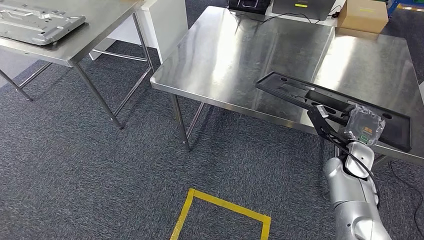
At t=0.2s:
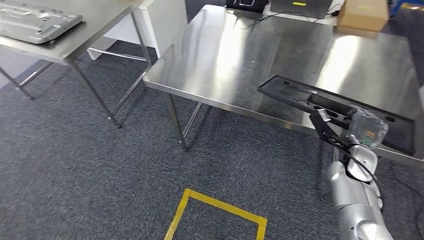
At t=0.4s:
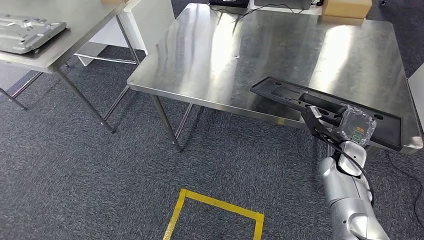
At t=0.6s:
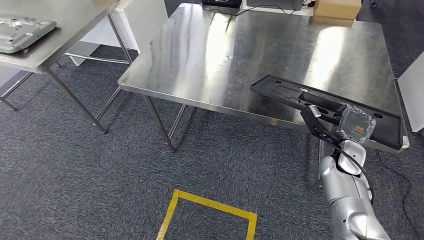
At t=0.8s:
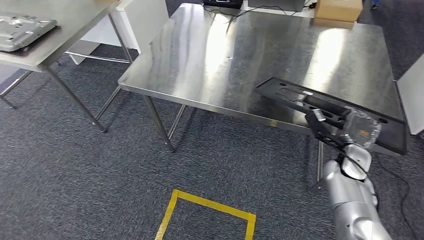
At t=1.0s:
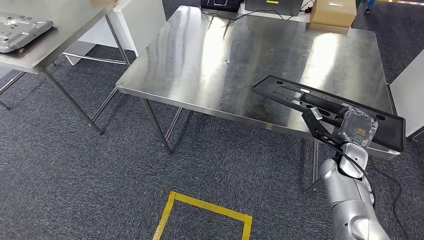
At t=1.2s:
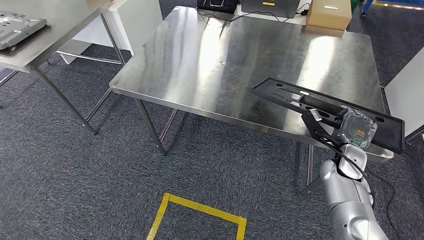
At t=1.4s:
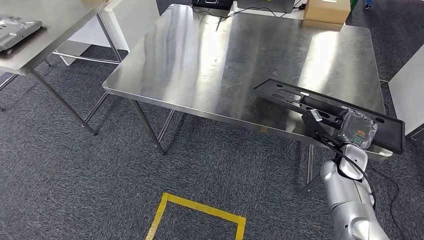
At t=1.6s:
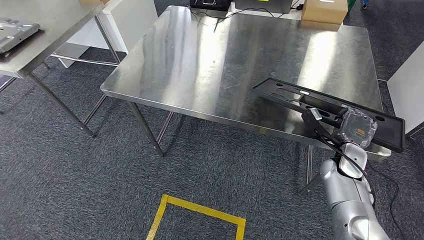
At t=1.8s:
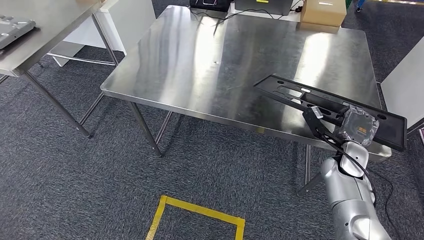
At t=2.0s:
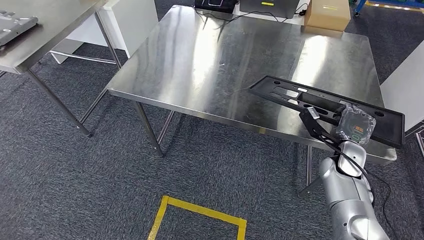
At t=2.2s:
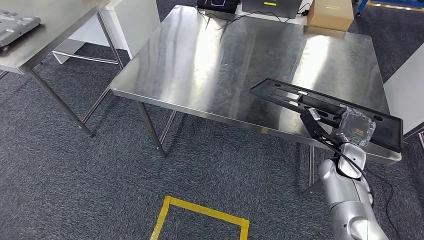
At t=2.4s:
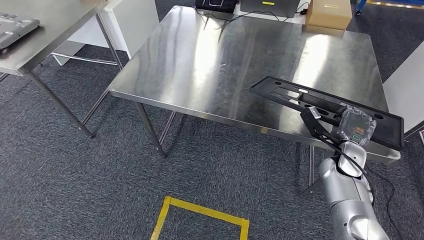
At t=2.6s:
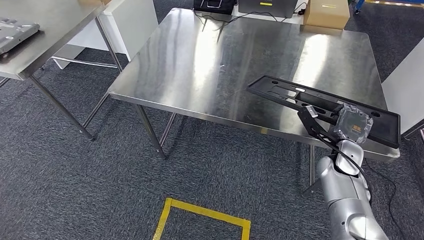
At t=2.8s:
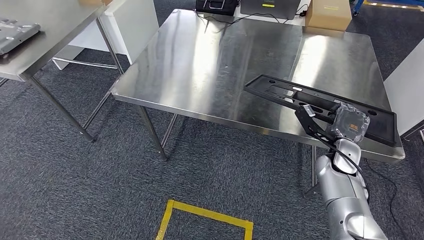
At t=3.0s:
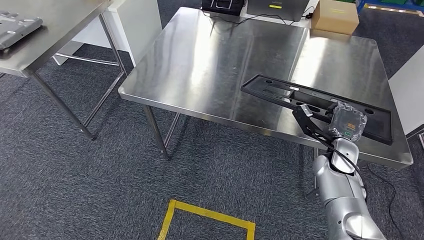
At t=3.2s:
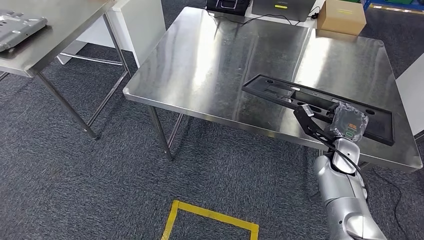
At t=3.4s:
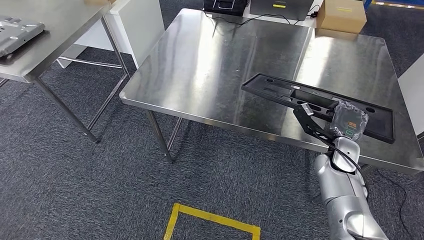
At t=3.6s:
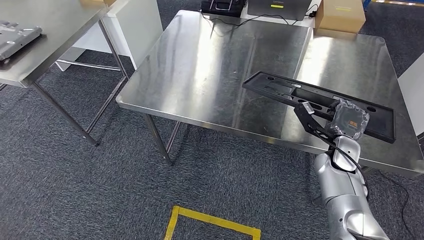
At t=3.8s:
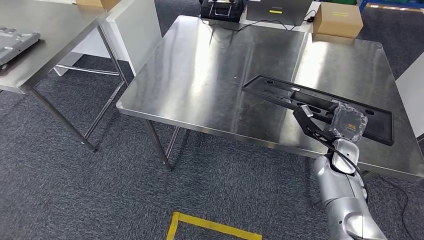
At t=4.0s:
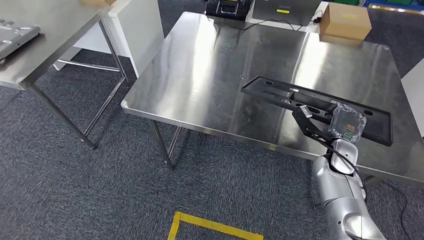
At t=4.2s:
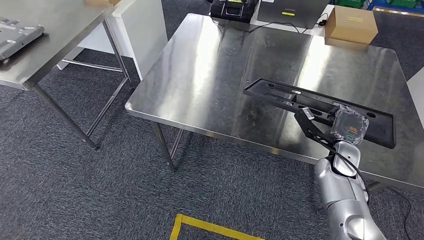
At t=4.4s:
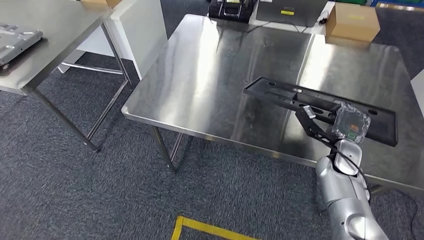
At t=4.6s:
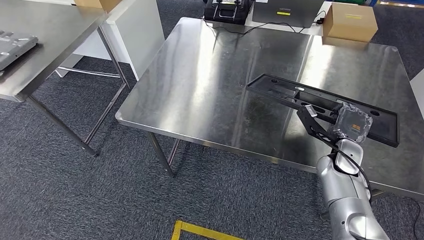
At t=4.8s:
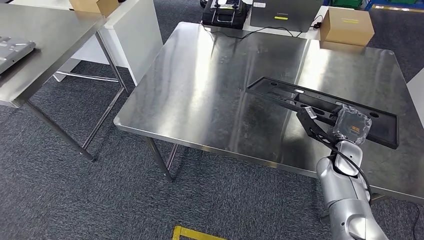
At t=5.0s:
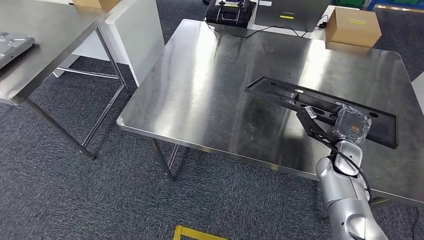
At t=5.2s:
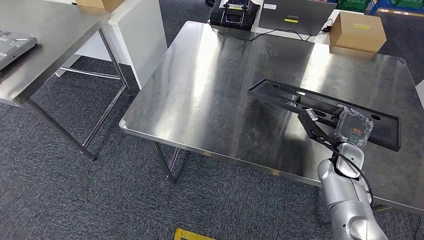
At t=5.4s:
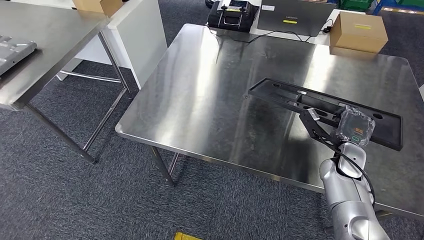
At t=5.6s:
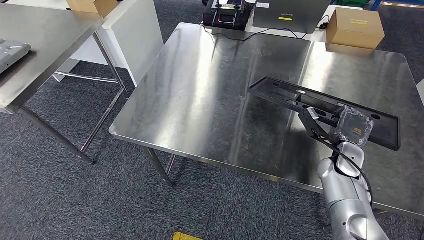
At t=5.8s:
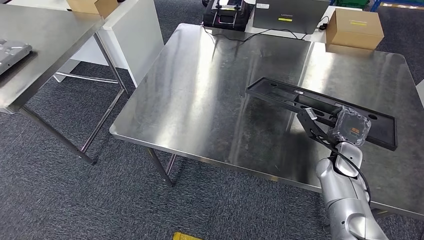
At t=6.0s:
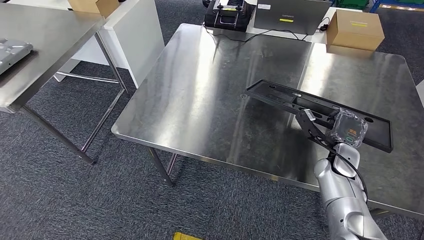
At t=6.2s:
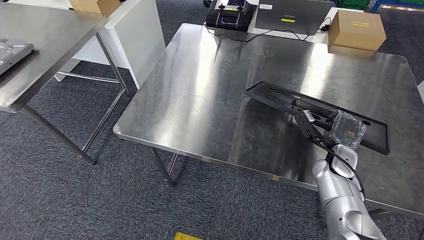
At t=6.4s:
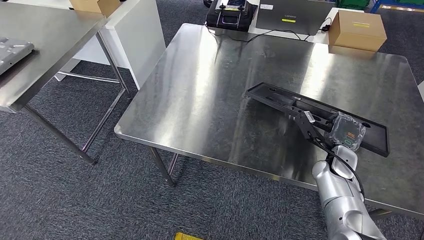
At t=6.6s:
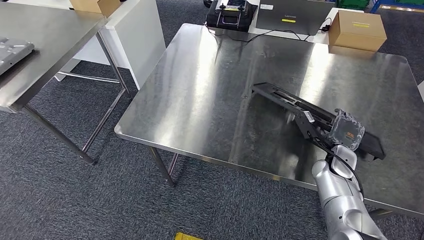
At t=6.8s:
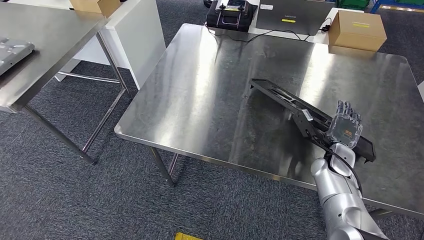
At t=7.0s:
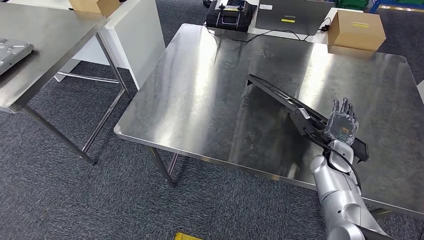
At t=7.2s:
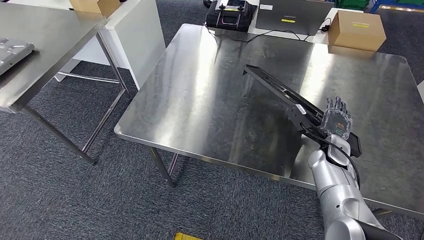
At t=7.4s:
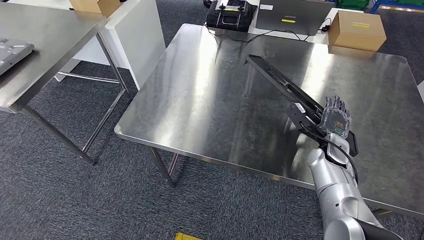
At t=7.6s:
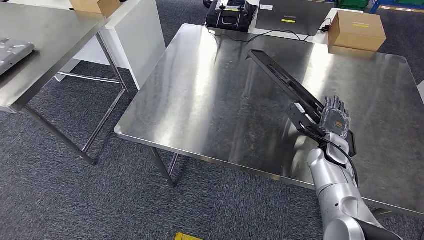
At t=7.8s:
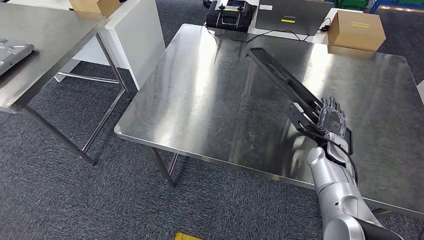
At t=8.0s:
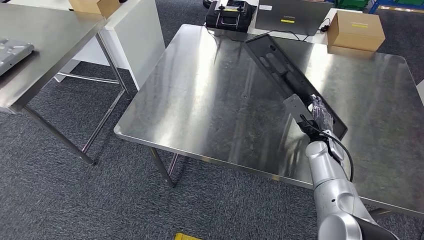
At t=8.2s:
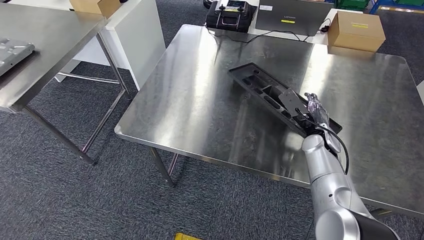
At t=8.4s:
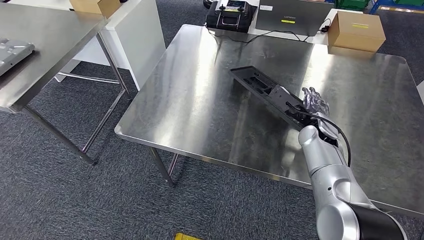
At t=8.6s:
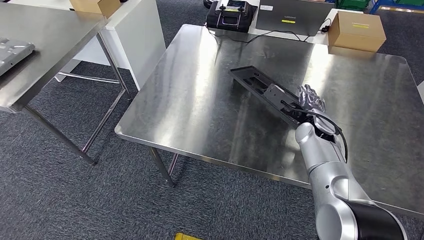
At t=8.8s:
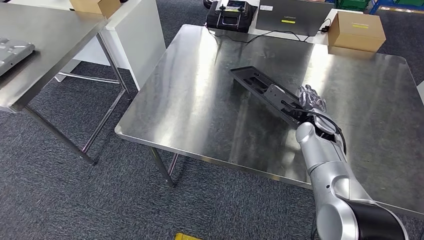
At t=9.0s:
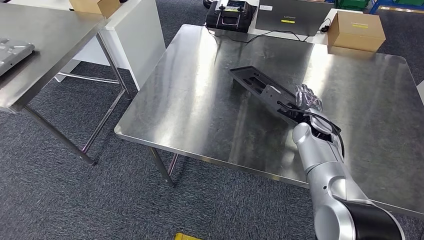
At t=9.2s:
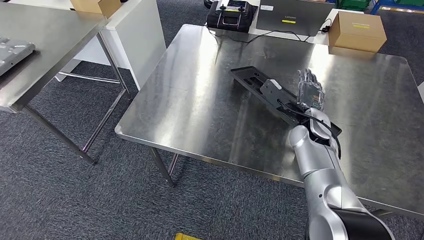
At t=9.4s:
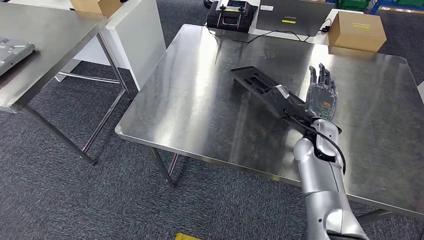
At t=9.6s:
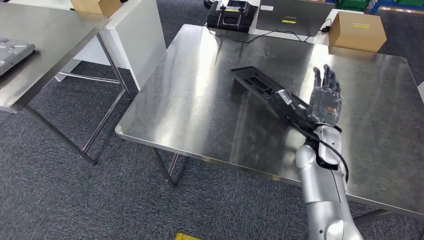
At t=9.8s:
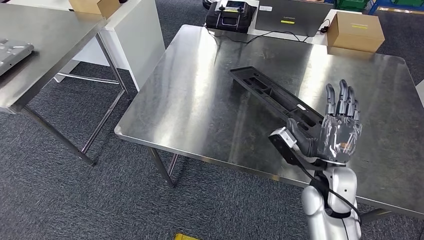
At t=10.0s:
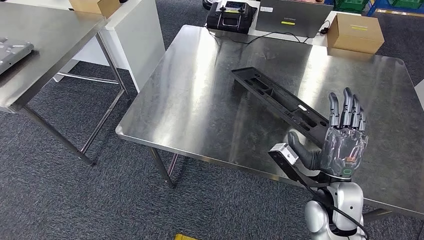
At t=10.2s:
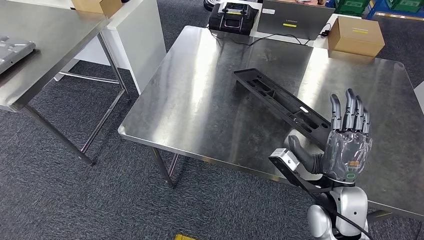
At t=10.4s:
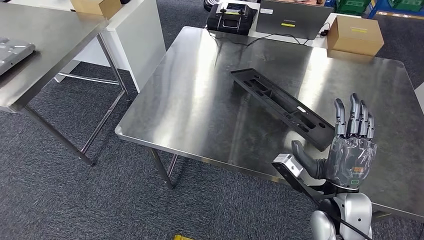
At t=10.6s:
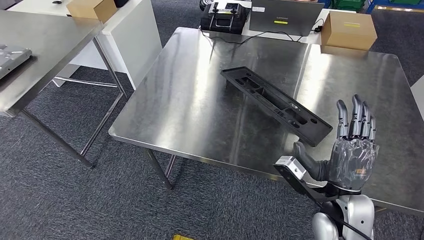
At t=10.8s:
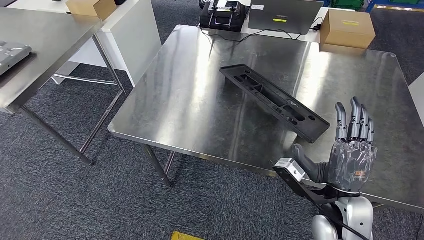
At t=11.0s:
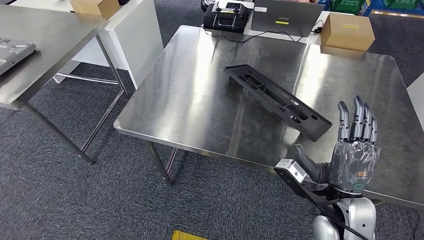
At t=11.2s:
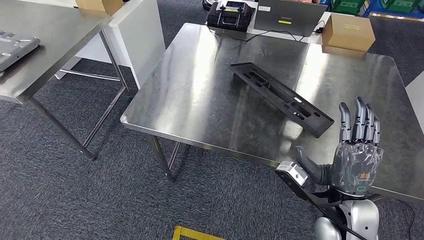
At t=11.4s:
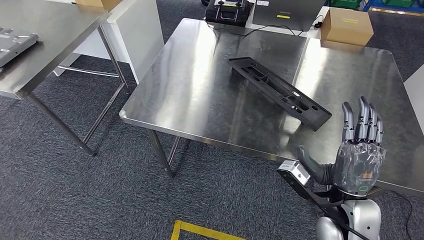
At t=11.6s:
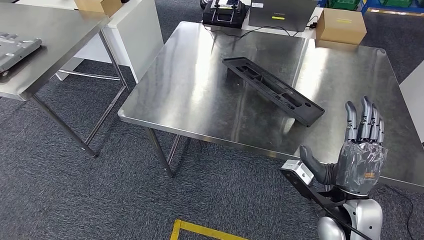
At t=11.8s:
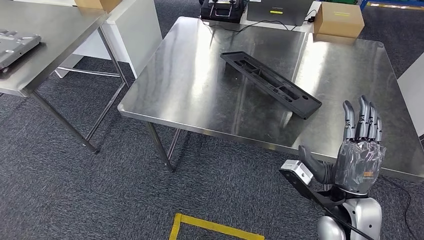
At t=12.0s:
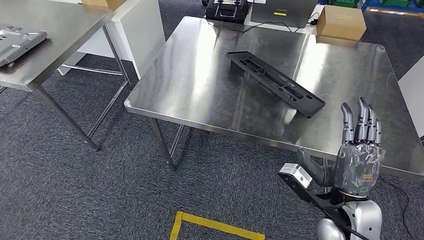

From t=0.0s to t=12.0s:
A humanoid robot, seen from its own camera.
From t=6.0s to t=7.6s: The hands stay close to where they were, moving slightly.
From t=7.6s to t=9.0s: The right hand moves to the left and upward, some 10 cm.
From t=9.0s to t=10.4s: The right hand goes roughly 20 cm backward.

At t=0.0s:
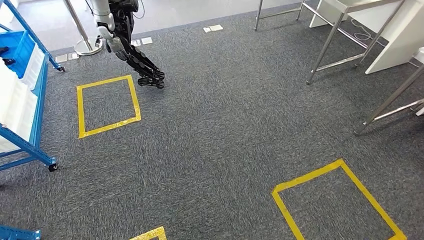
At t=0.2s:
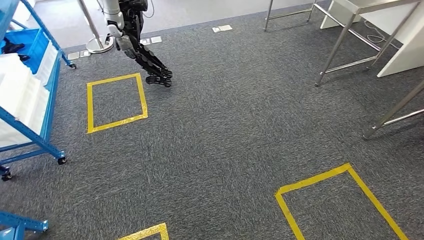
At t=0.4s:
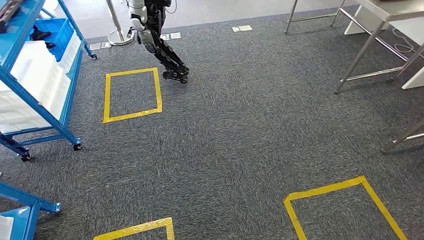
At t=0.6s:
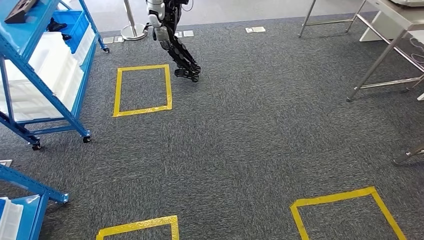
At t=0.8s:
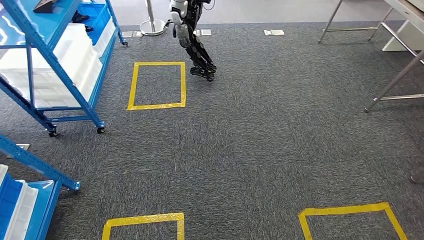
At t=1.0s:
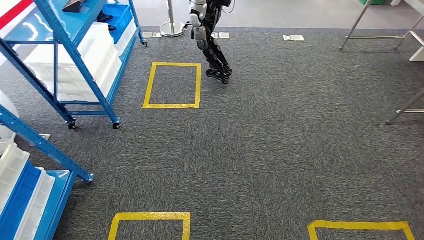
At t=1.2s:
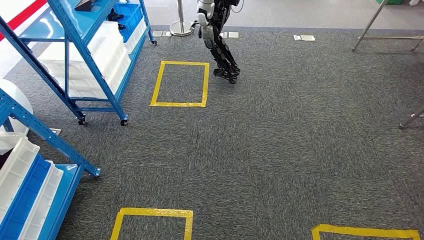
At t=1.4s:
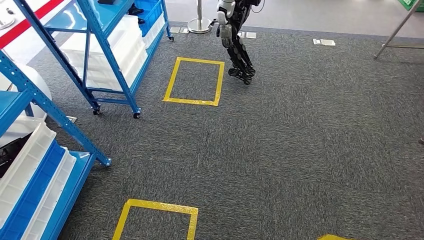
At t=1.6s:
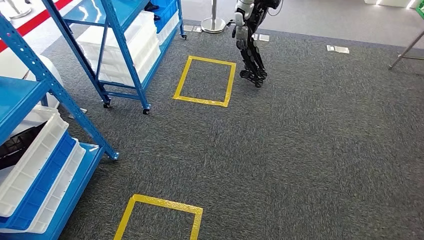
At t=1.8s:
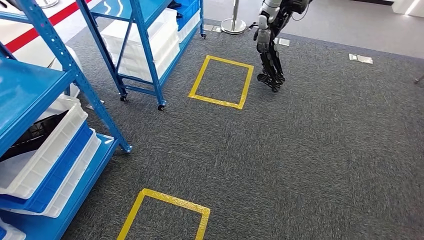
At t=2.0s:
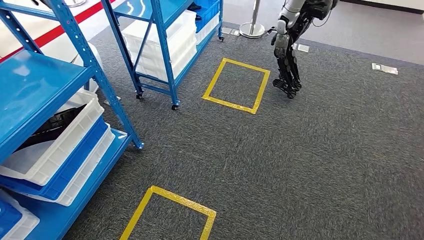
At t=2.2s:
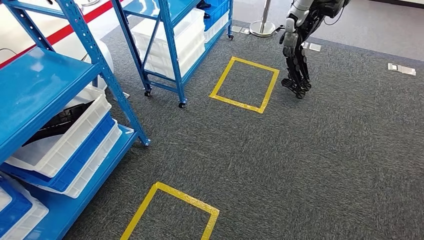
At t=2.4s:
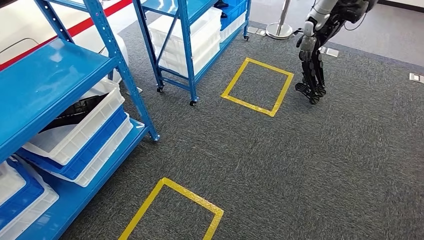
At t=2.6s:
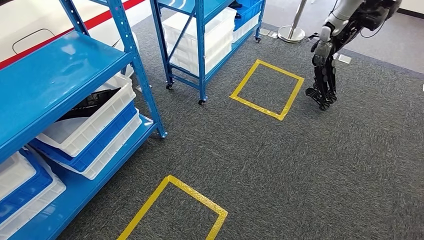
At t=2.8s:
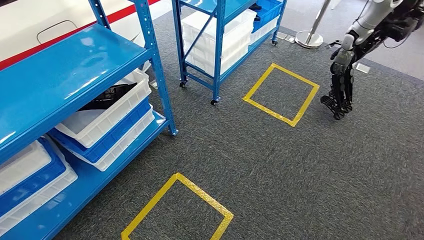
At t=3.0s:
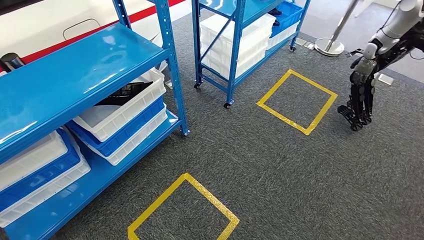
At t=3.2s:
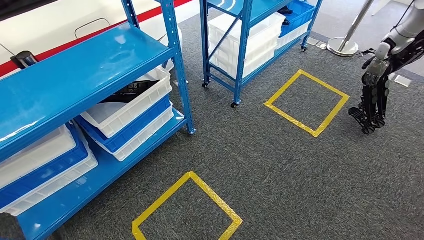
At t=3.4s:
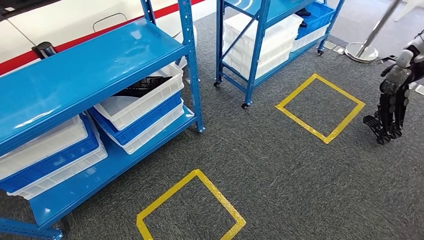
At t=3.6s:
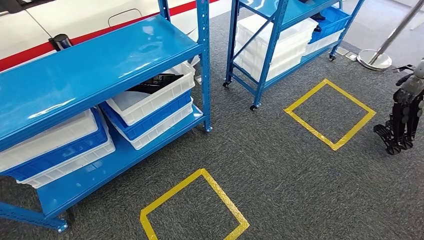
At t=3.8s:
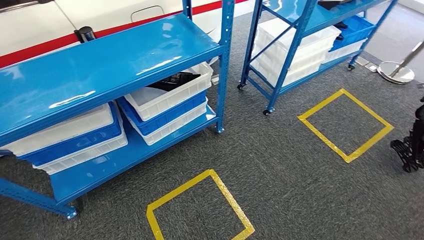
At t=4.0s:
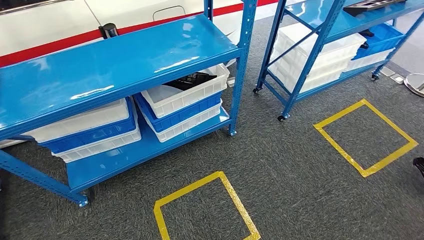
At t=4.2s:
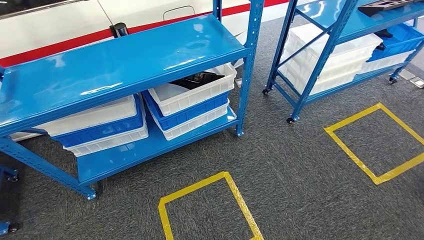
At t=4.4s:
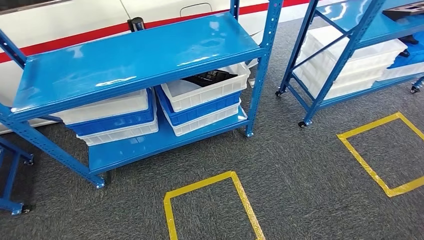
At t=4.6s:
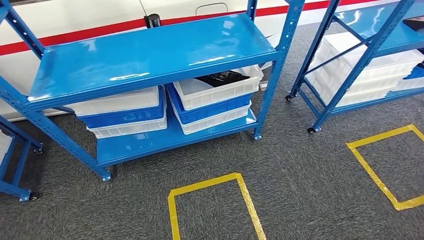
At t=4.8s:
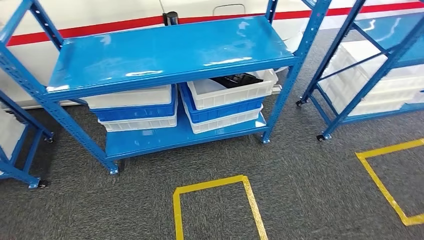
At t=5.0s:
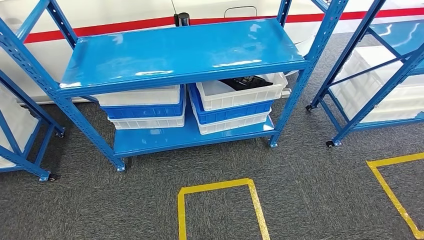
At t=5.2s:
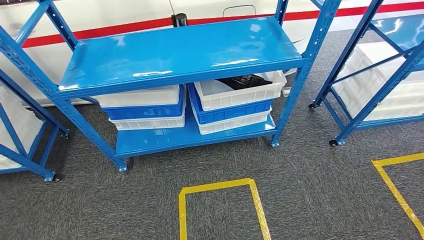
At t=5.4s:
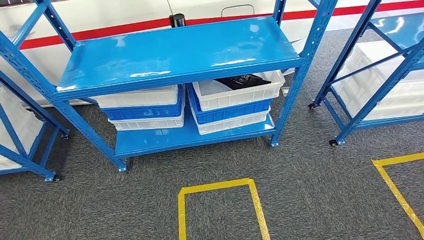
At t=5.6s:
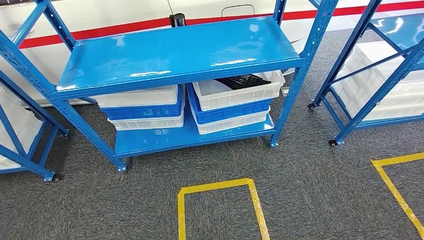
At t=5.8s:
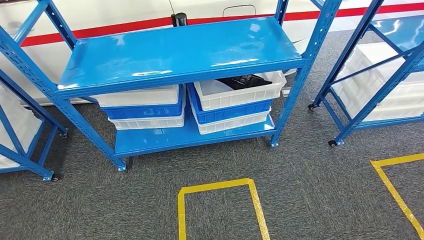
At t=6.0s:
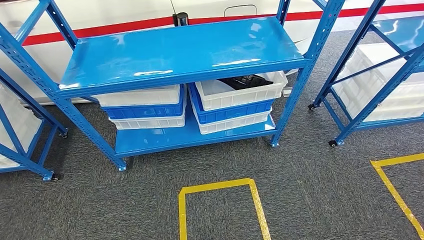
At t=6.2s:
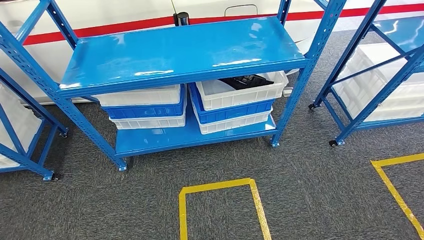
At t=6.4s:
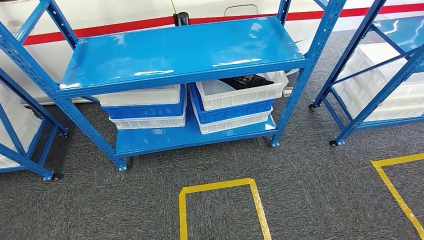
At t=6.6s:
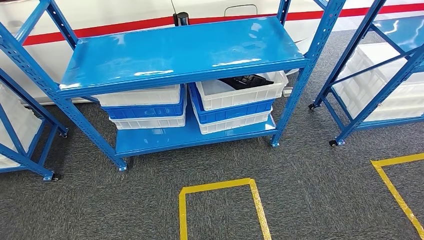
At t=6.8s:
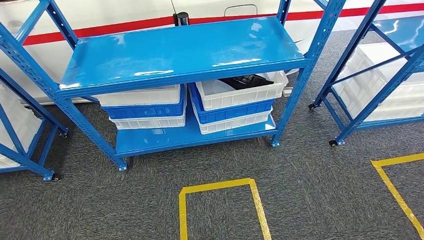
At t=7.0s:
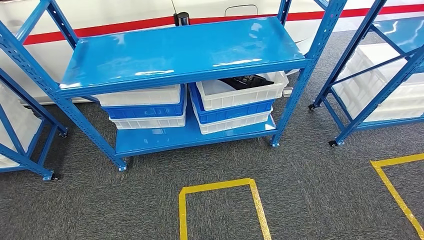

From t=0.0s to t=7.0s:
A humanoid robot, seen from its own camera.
From t=5.6s to t=7.0s: Both hands stay about where they are.
